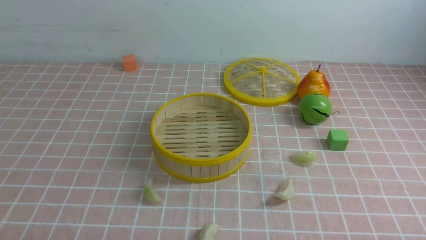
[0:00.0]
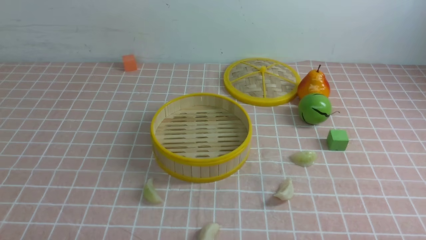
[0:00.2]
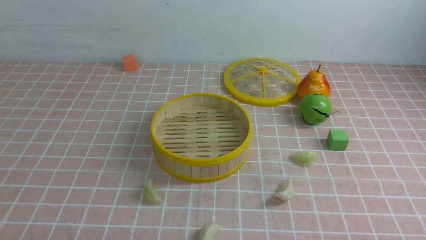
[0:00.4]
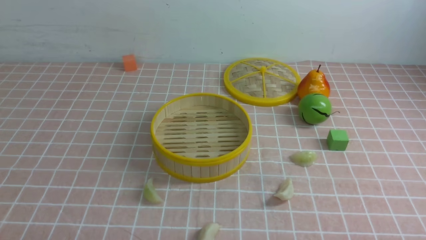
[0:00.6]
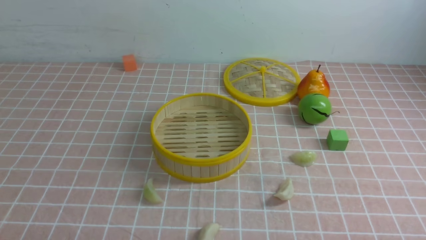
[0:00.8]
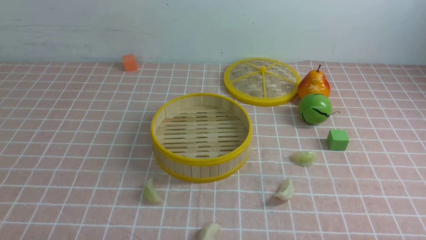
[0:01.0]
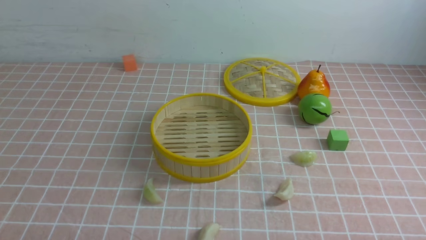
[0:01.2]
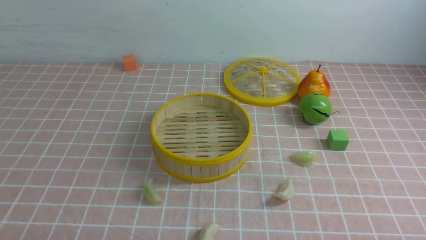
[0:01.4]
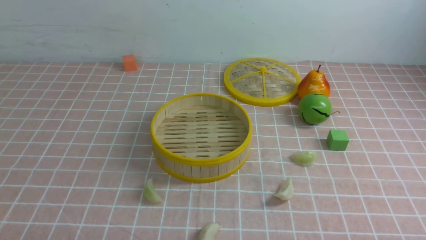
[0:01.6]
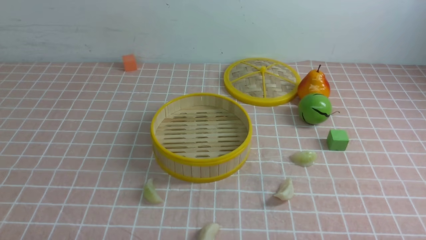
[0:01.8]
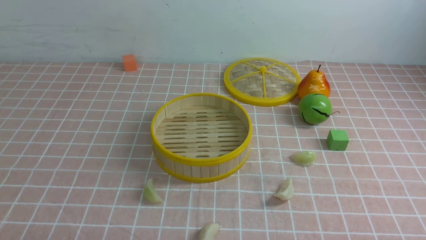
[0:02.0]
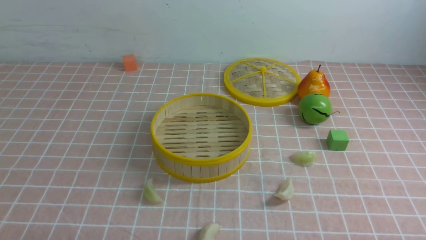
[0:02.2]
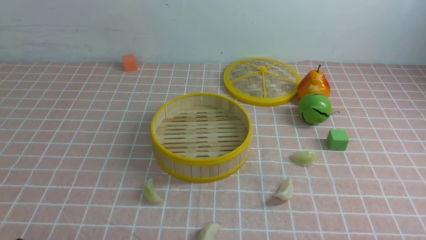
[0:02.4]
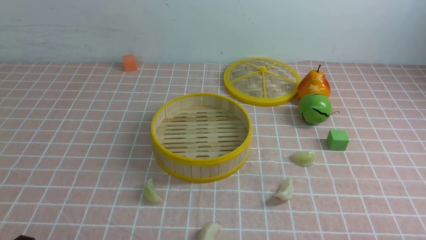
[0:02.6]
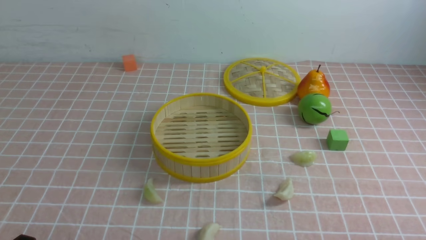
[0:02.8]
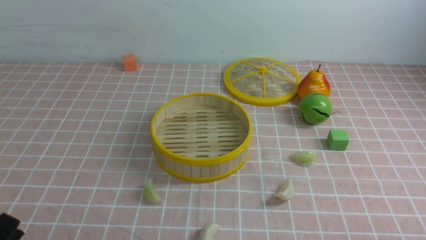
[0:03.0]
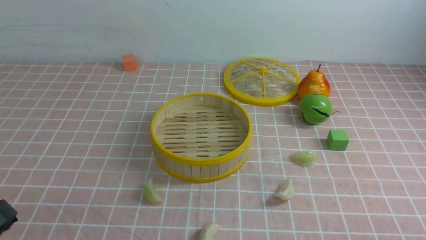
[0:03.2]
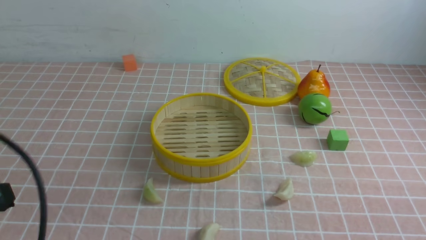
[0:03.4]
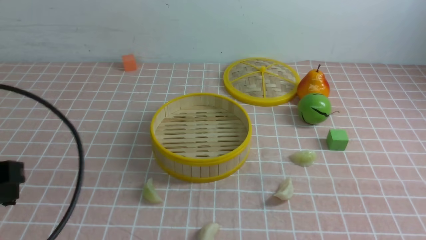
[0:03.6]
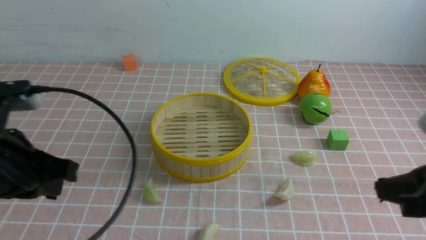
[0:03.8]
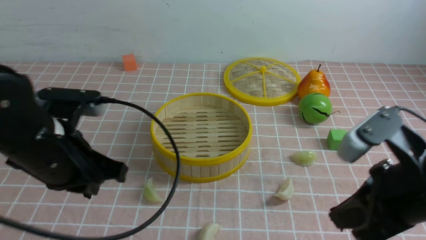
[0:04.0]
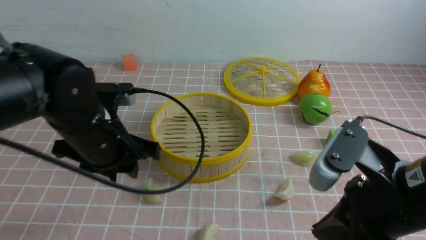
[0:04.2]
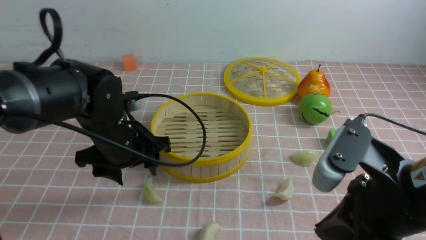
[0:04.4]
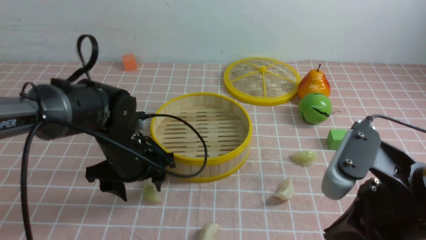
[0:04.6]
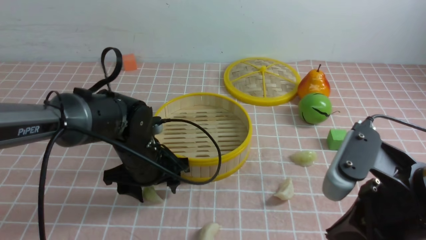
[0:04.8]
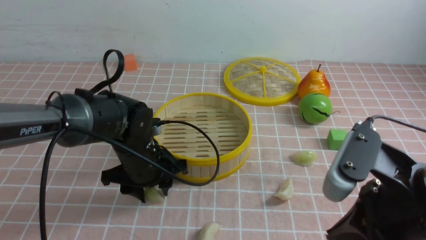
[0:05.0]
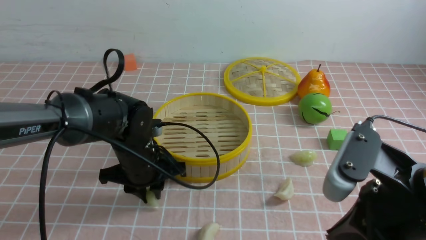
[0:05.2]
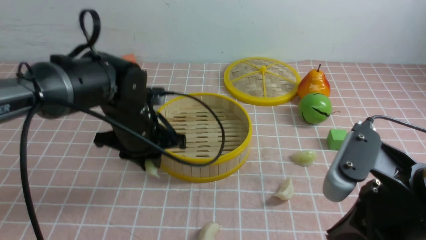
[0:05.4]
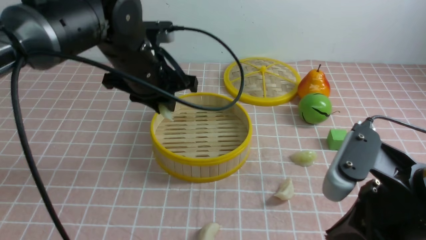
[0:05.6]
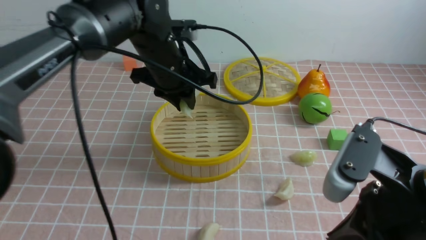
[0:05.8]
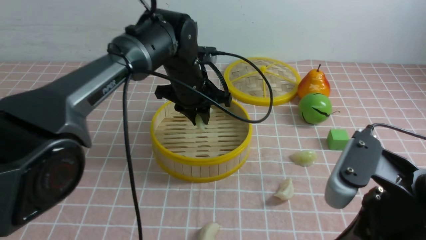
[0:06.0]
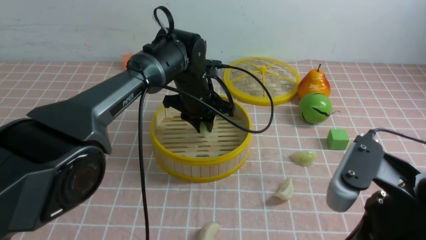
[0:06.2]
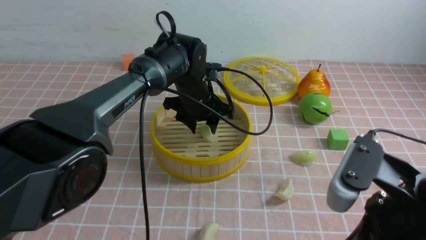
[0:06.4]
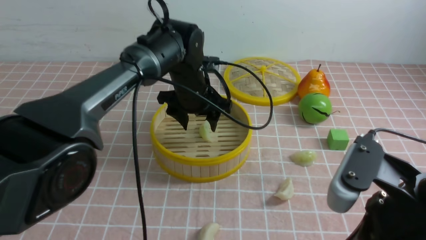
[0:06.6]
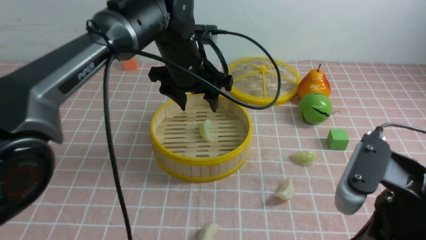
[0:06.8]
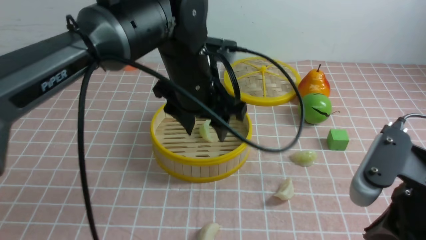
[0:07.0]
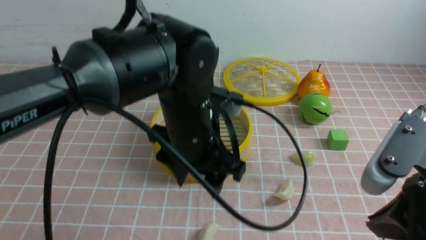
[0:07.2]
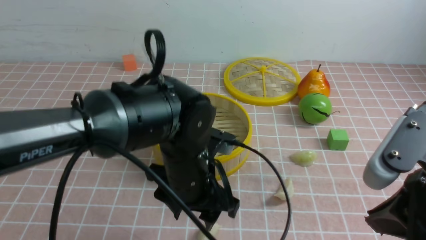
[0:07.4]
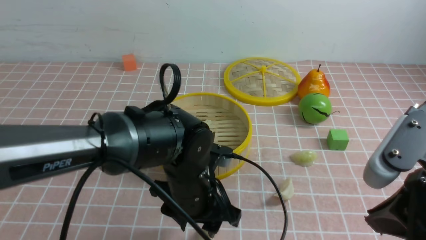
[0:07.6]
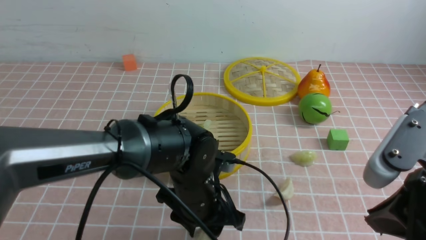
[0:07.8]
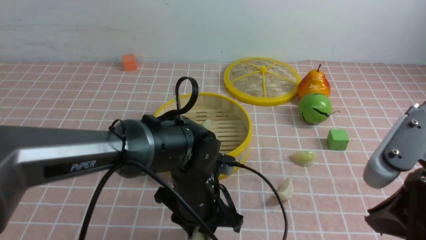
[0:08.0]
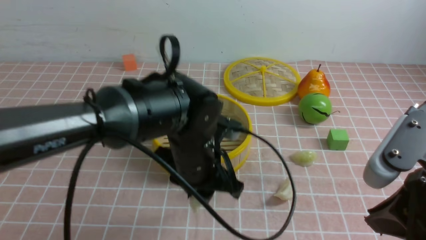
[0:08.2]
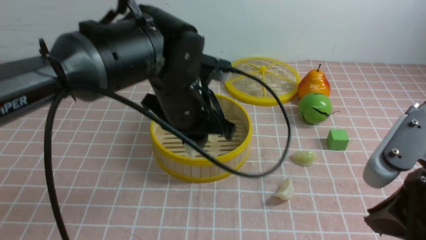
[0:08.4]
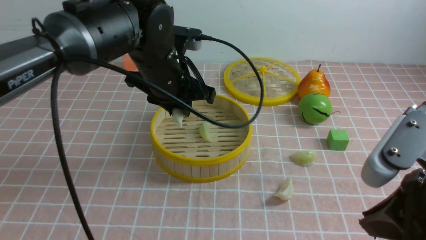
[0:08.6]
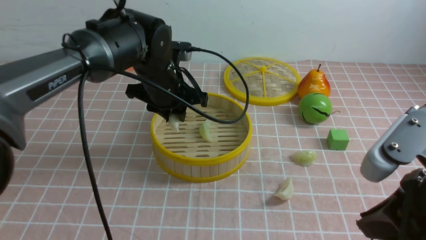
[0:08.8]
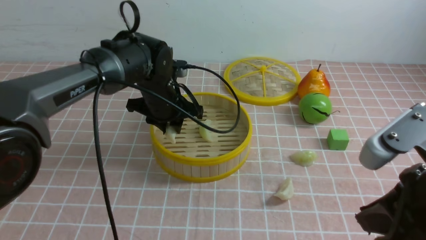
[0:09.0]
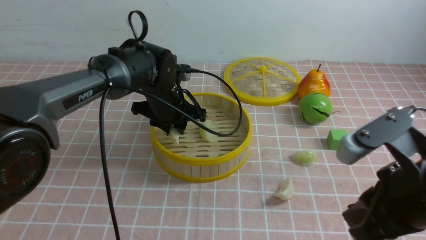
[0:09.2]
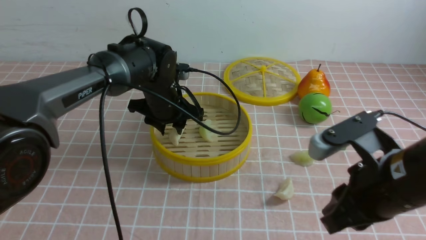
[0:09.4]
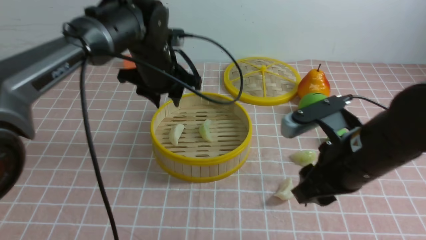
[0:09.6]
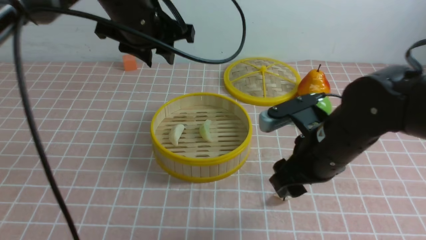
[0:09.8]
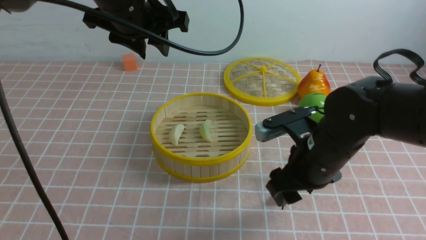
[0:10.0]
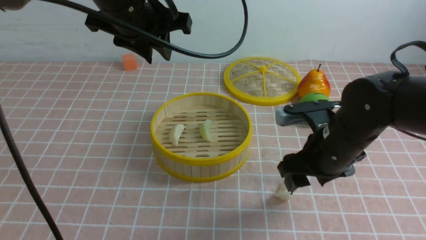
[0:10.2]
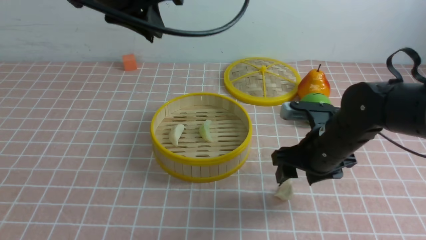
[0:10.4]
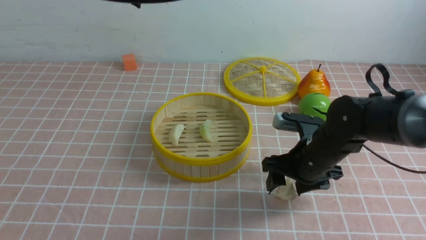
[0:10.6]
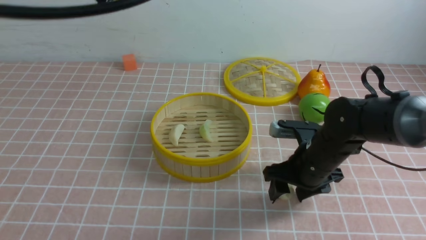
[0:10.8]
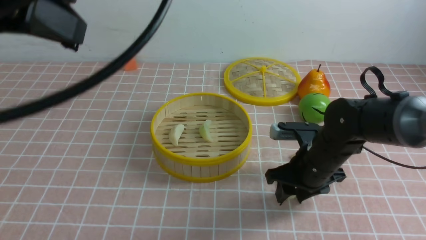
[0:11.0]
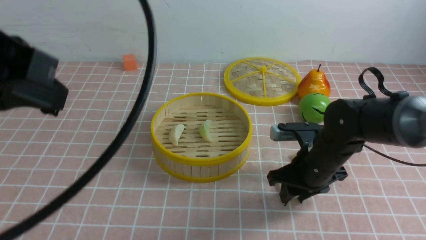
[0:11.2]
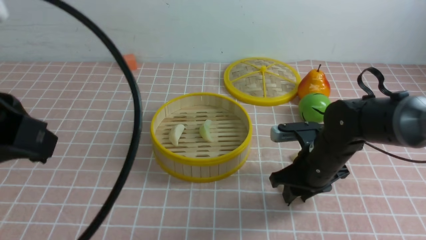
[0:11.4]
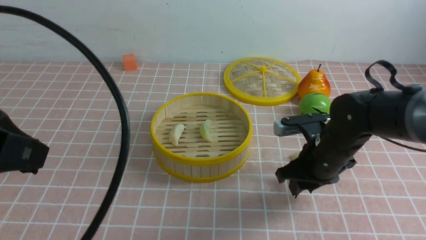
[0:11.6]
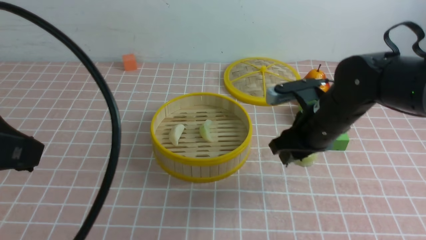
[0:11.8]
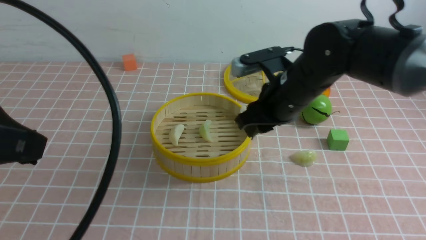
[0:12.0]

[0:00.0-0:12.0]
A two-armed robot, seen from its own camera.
Task of the whole recording: put the dumplings into the steamer on the table with the pink tablecloth.
Step, 0:00.0 to 0:05.2: use the left arm to grab a dumpling.
Step, 0:05.4 to 0:06.2: use the left arm to put the dumpling into the steamer.
Step, 0:06.4 to 0:07.8: use the left arm to grab a dumpling.
Step, 0:08.0 to 0:09.4: use the left arm to put the dumpling into the steamer.
Step, 0:09.6 to 0:11.4: use the right arm to grab a dumpling.
0:03.0 to 0:04.4: The left gripper is displaced forward and to the right by some 30 cm, and opens up, while the right gripper heads to the left, forward and upward, covering roughly 20 cm, and closes.
0:04.4 to 0:06.0: The left gripper moves forward and to the right, about 15 cm, reaches roughly 5 cm downward, then returns, and closes its fingers.
0:06.0 to 0:07.6: The left gripper heads backward and downward, covering some 20 cm, and opens its fingers.
0:07.6 to 0:09.0: The left gripper moves forward, roughly 15 cm, and closes its fingers.
0:09.0 to 0:10.4: The right gripper moves forward and downward, some 20 cm, and opens, while the left gripper travels upward and backward by roughly 20 cm.
0:10.4 to 0:12.0: The right gripper changes place by roughly 5 cm, and closes; the left gripper is displaced backward and to the left by approximately 25 cm.

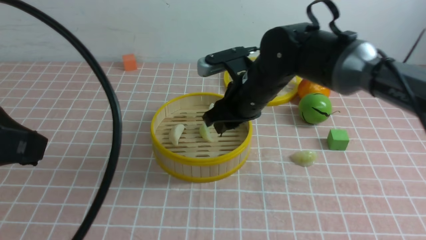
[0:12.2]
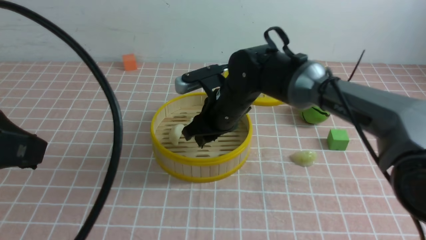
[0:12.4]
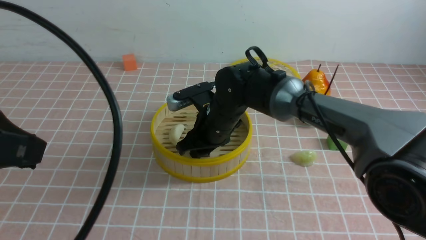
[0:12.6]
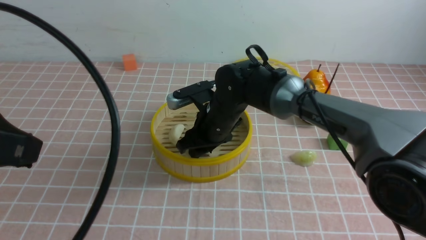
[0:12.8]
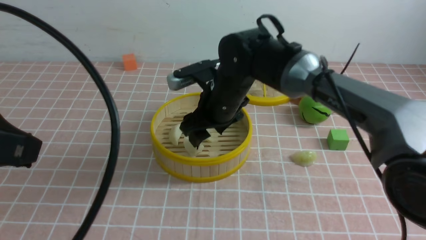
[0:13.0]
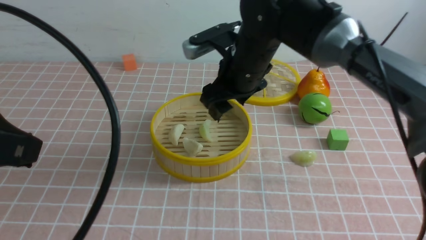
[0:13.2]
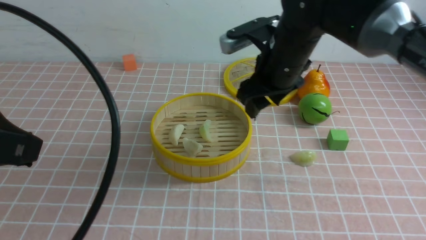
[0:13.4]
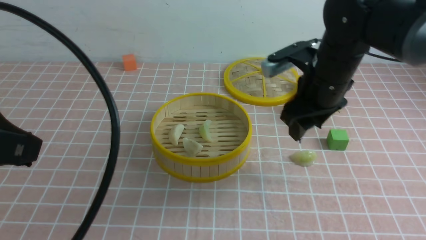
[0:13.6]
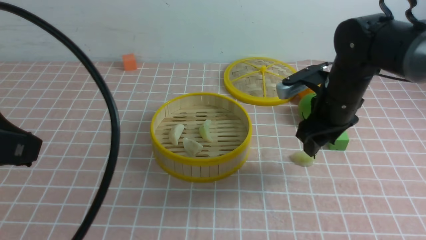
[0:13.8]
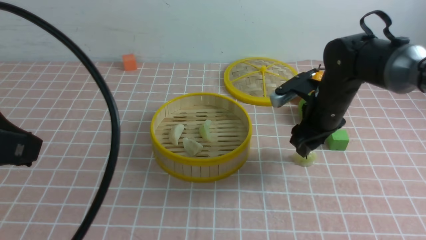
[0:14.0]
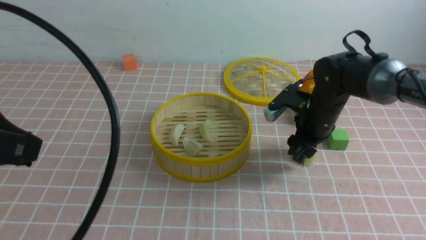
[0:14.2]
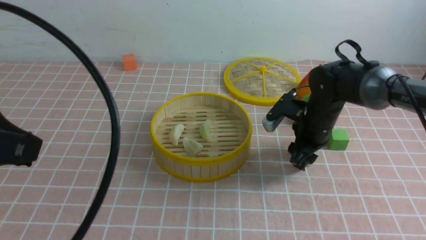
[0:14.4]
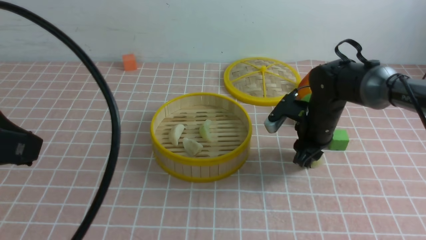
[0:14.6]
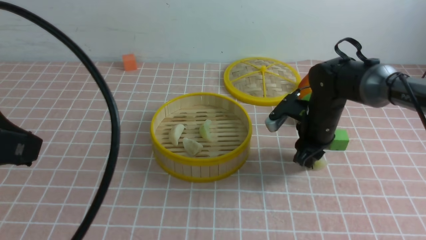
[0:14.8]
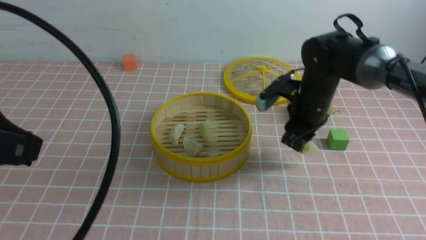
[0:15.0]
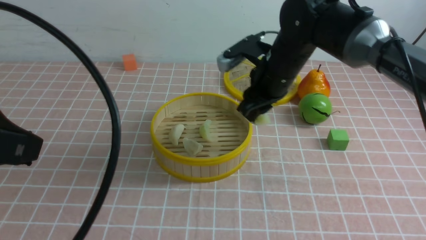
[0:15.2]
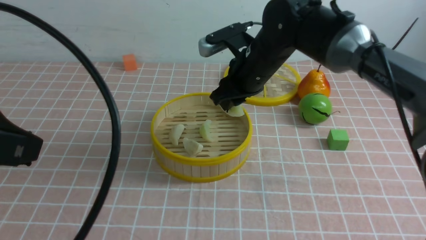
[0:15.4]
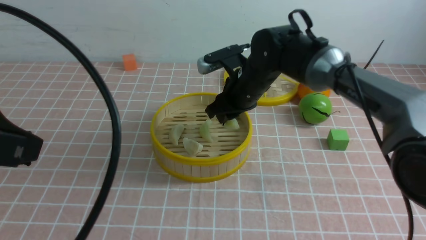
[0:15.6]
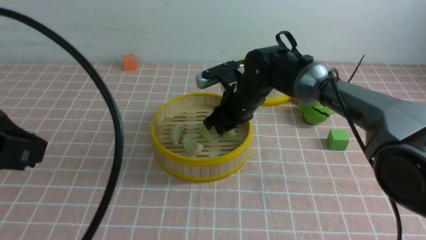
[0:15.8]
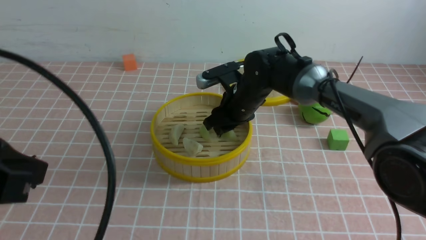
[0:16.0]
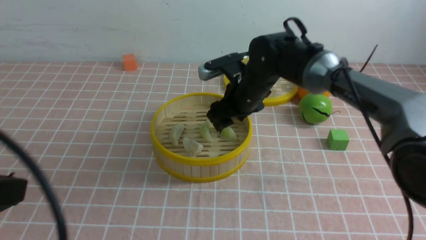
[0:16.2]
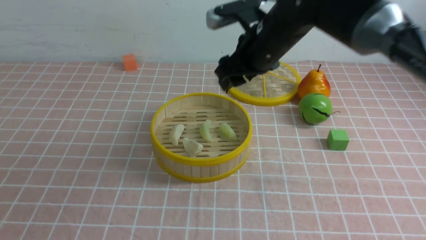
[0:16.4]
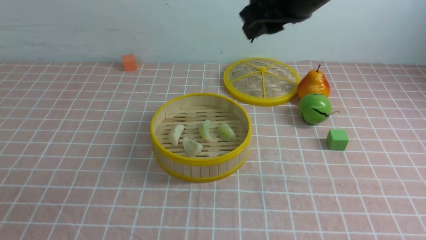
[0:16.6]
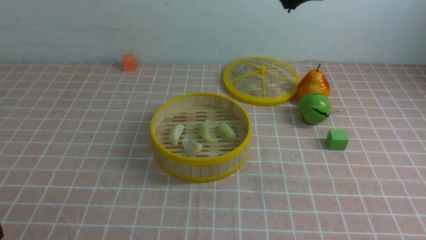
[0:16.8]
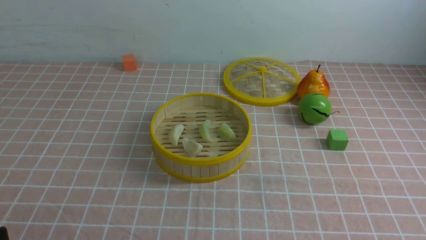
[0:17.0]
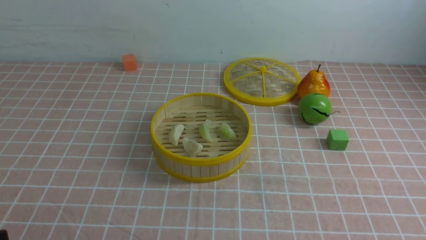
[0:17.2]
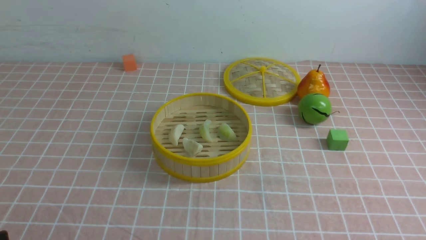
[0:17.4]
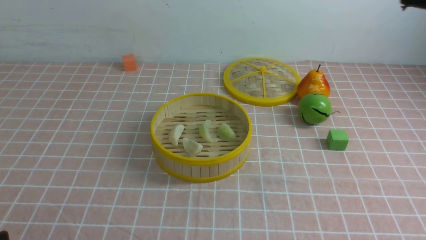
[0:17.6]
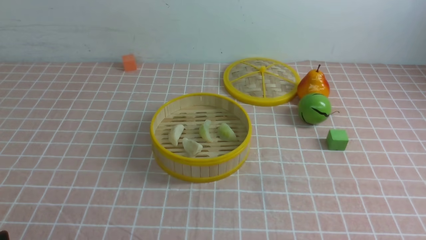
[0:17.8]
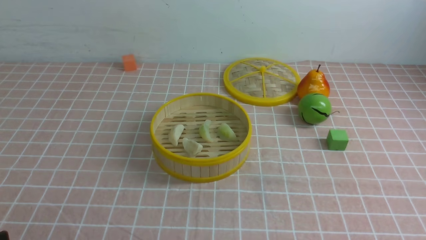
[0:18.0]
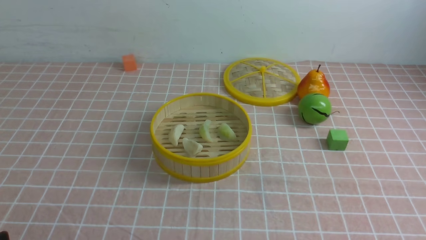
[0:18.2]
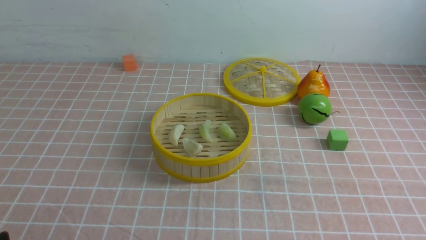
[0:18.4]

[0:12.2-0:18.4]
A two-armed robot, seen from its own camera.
Task of the whole recording: put the dumplings into the steamer on the table with the pink tablecloth.
Step, 0:12.2 to 0:12.8: use the right arm to put the dumpling into the steamer.
Step, 0:13.0 to 0:14.8: use the right arm to grab a dumpling.
Step, 0:15.0 to 0:16.0: use the right arm to put the dumpling into the steamer.
0:12.2 to 0:13.8: The right gripper shifts roughly 10 cm to the right, and opens up.
0:13.8 to 0:15.4: The right gripper moves to the left, about 10 cm, travels downward and back again, some 10 cm each way, and closes its fingers.
0:15.4 to 0:16.8: The right gripper shifts about 25 cm upward and backward, and opens and closes again, while the left gripper is displaced downward and backward by about 15 cm.
